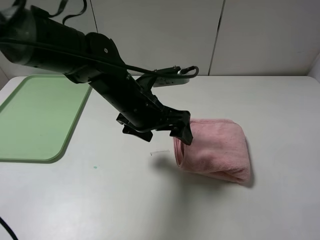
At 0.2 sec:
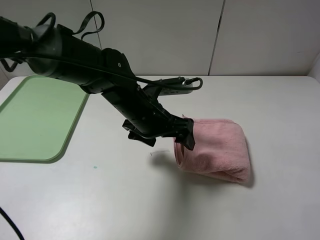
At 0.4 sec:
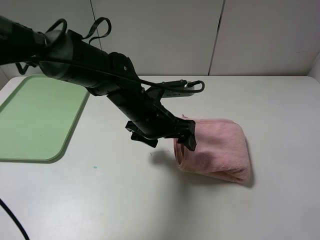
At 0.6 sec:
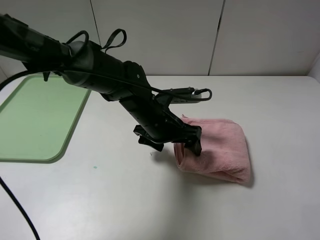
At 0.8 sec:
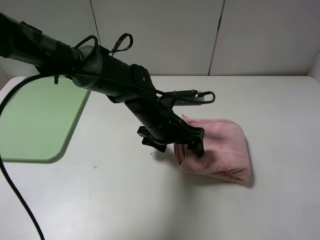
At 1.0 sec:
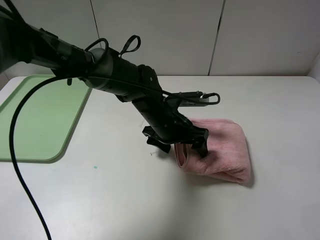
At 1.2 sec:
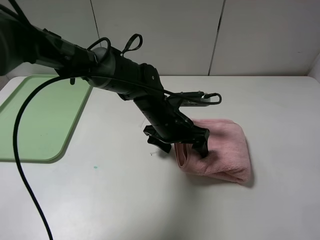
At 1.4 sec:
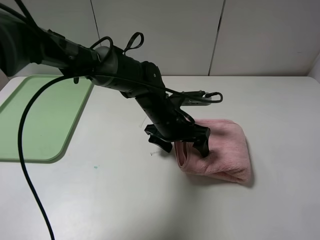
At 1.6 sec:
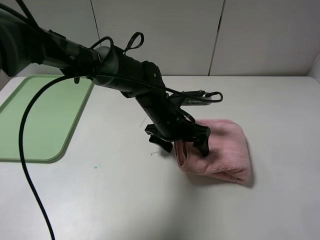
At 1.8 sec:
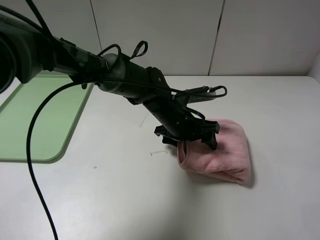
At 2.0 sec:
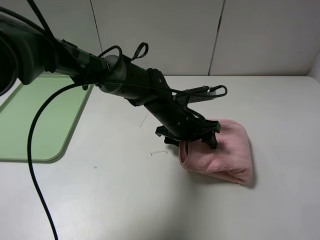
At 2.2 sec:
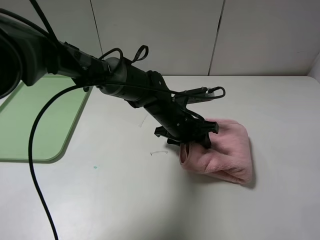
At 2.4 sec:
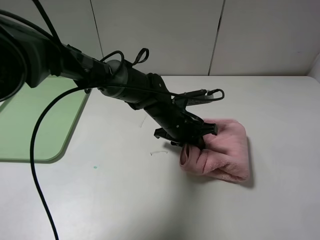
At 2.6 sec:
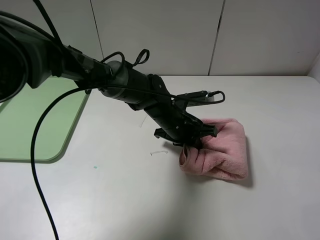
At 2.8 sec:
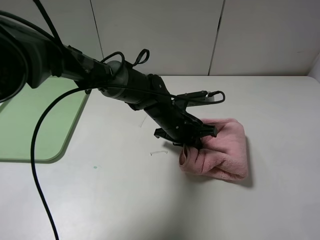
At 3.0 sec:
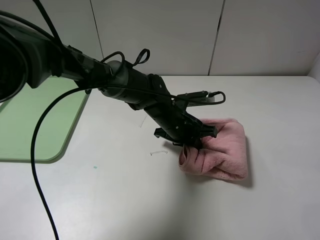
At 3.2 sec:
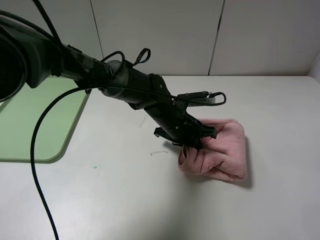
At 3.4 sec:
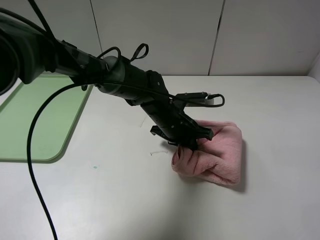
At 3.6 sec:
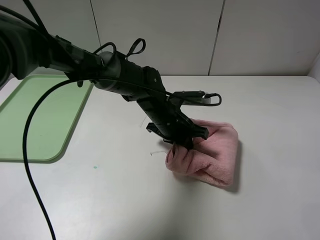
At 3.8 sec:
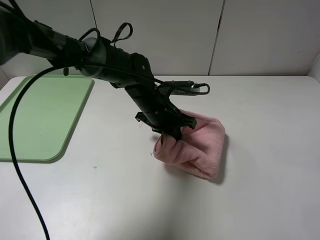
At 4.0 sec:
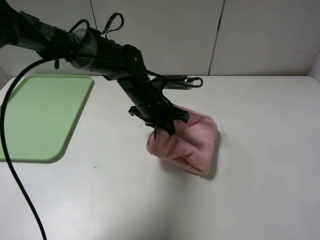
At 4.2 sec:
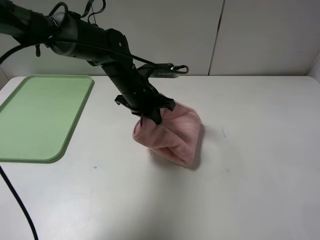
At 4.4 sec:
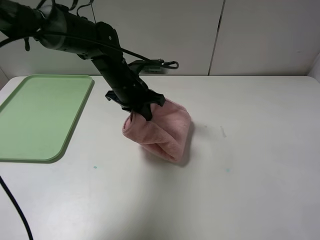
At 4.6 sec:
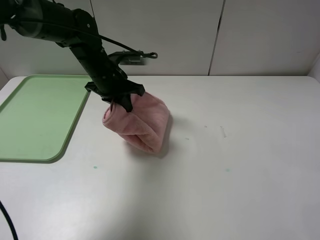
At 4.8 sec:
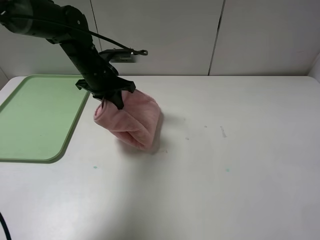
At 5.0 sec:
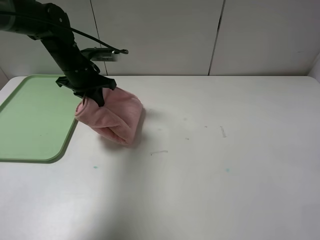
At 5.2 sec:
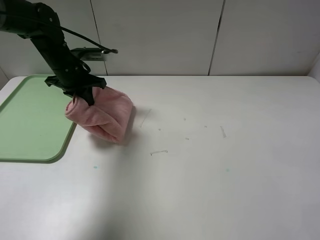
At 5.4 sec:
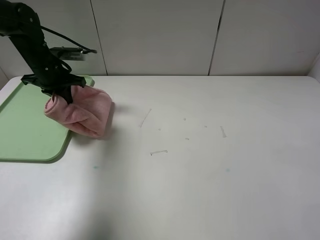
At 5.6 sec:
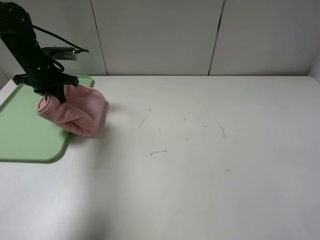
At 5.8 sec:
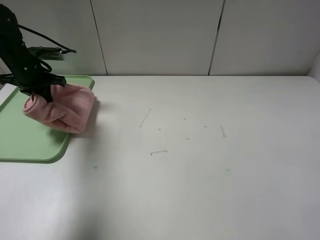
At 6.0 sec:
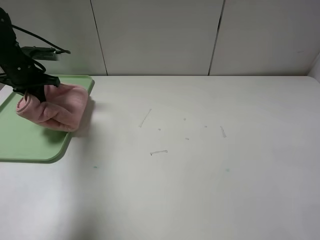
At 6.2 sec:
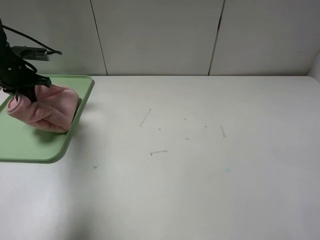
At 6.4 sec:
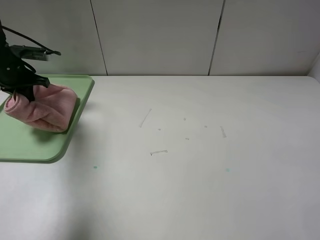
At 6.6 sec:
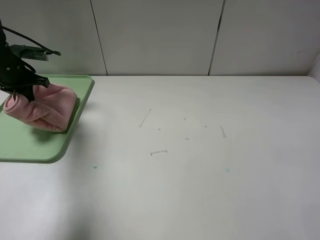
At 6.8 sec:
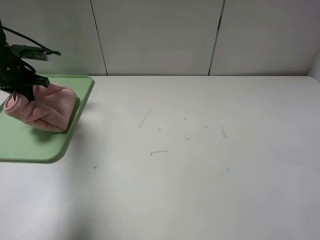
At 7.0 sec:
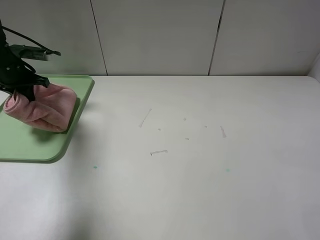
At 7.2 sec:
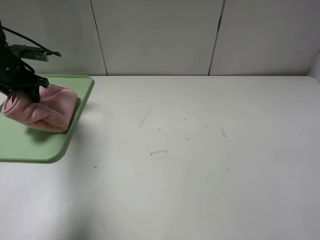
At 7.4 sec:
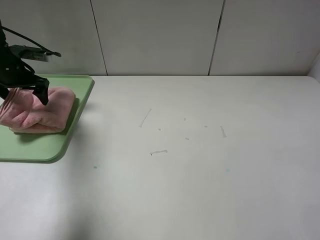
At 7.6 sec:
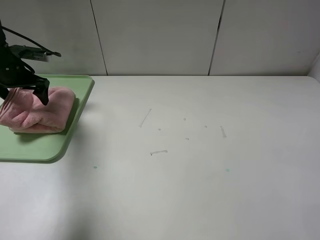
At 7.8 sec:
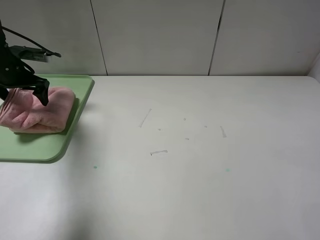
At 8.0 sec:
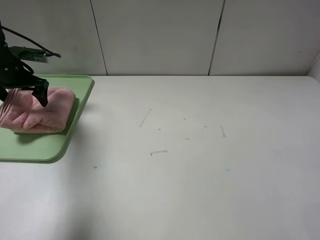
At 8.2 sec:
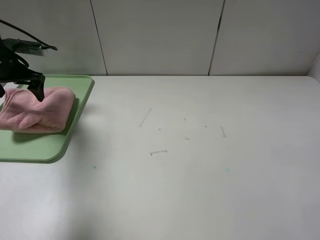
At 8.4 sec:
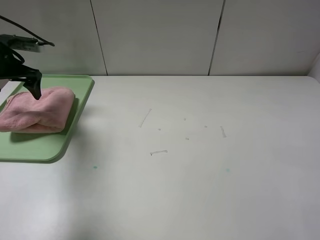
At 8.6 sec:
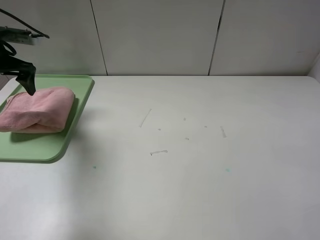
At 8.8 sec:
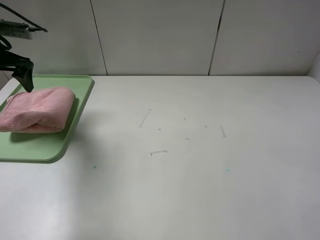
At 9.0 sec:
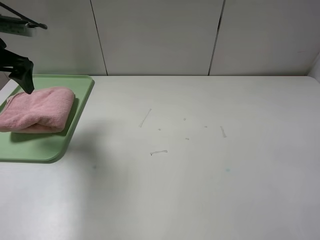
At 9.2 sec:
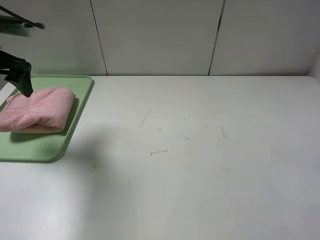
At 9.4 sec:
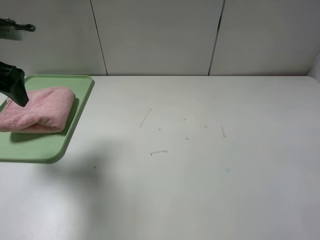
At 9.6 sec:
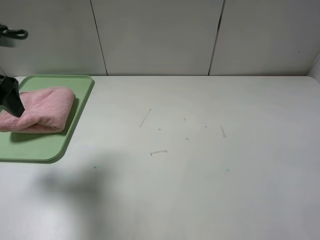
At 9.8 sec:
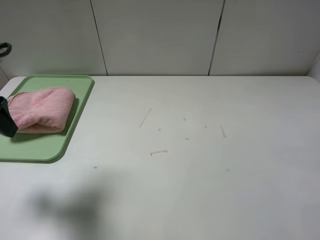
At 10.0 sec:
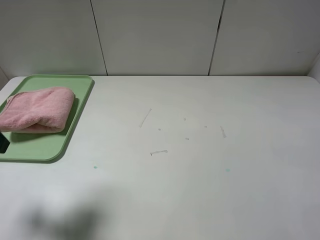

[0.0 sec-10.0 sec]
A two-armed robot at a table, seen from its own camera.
Step, 0.0 sec to 8.0 sec: Place the folded pink towel on the tray with the left gripper.
0.0 sec to 1.4 sec: The left gripper goes approximately 10 cm downward and to the right.
1.4 sec to 2.8 sec: The left gripper closes up.
2.8 sec to 4.2 sec: The left gripper goes about 10 cm to the left and upward.
4.2 sec to 5.8 sec: The left gripper shifts approximately 25 cm to the left.
5.8 sec to 7.2 sec: The left gripper opens its fingers.
7.2 sec to 8.6 sec: The left gripper goes about 5 cm upward.
8.6 sec to 10.0 sec: The left gripper shifts roughly 25 cm backward.

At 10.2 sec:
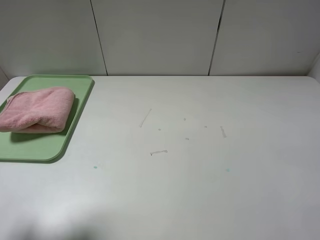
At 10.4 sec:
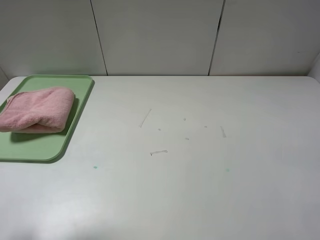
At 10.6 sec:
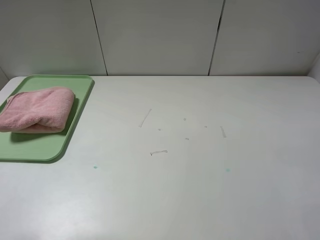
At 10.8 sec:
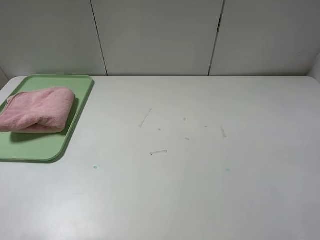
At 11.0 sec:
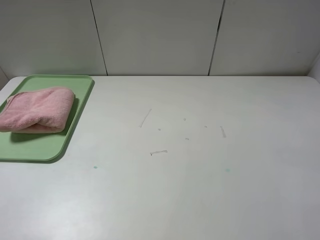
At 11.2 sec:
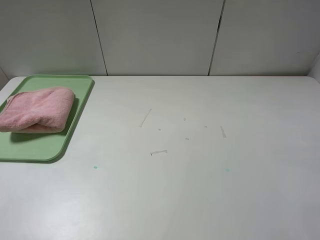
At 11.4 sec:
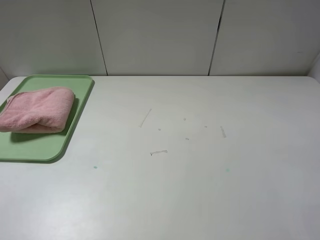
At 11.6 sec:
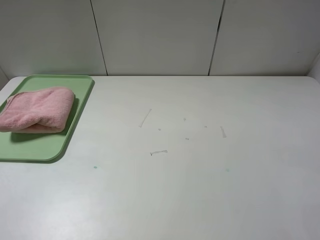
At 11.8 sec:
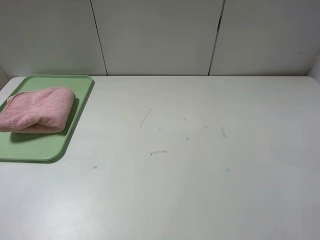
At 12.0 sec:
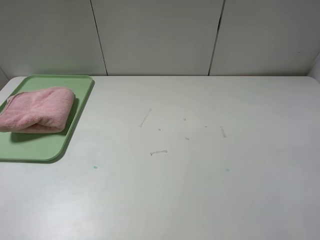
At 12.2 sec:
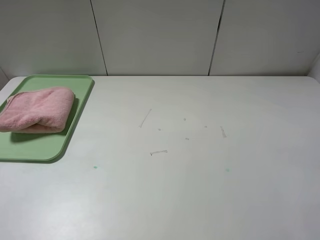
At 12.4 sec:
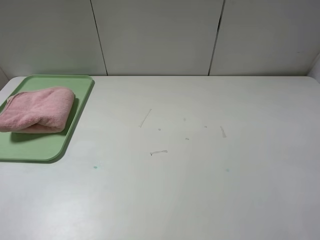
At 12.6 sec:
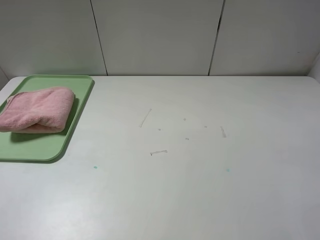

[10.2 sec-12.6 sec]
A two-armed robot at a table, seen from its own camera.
10.2 sec to 11.4 sec: The left gripper is displaced backward by some 10 cm.
11.4 sec to 12.6 sec: Both grippers stay about where they are.
